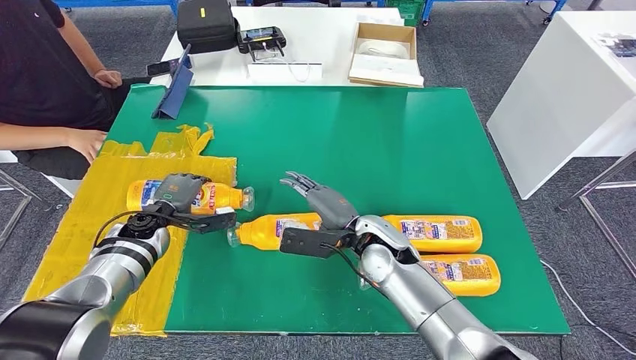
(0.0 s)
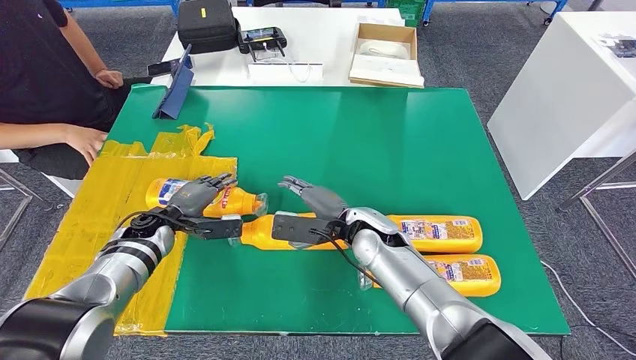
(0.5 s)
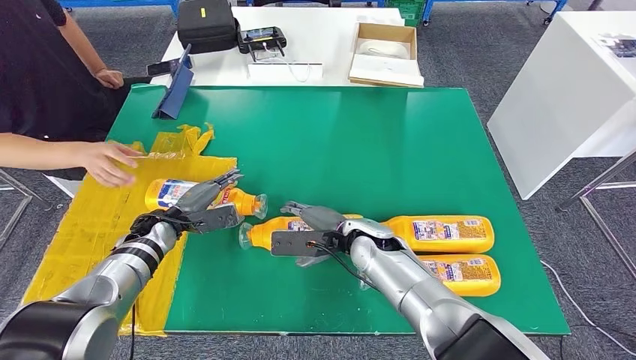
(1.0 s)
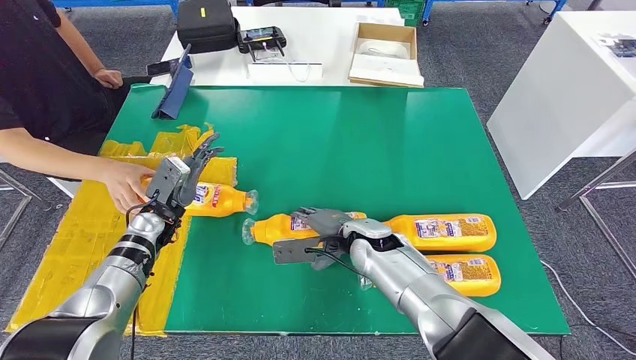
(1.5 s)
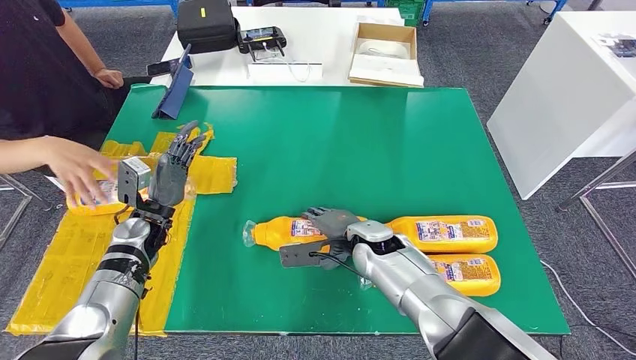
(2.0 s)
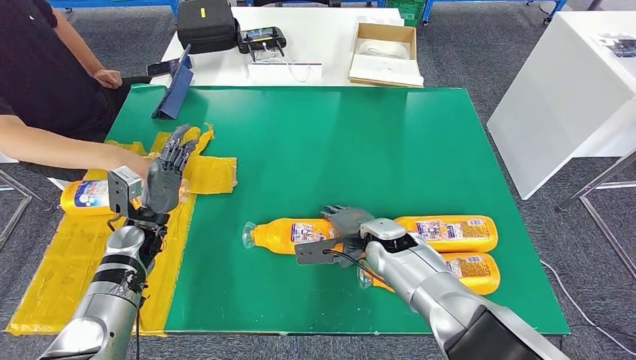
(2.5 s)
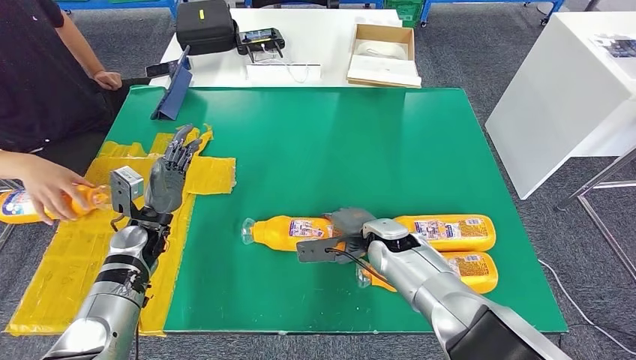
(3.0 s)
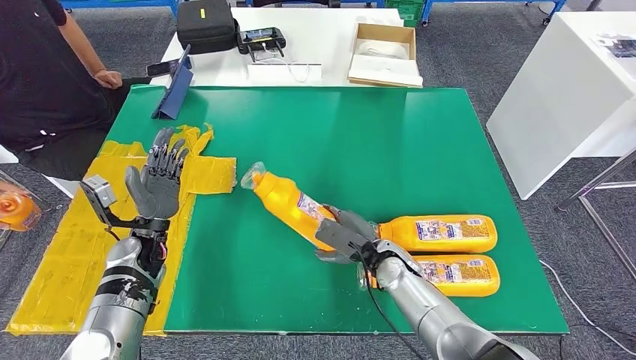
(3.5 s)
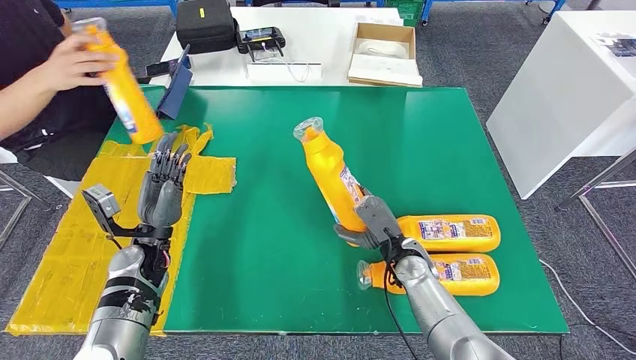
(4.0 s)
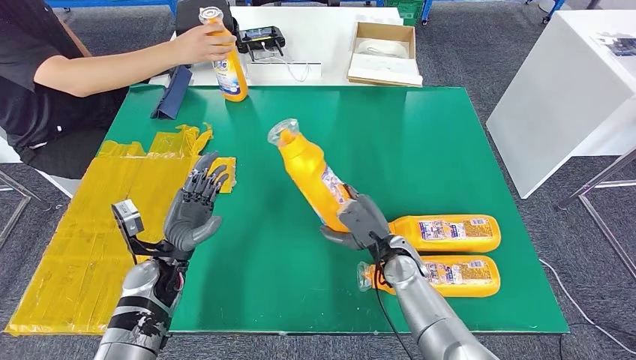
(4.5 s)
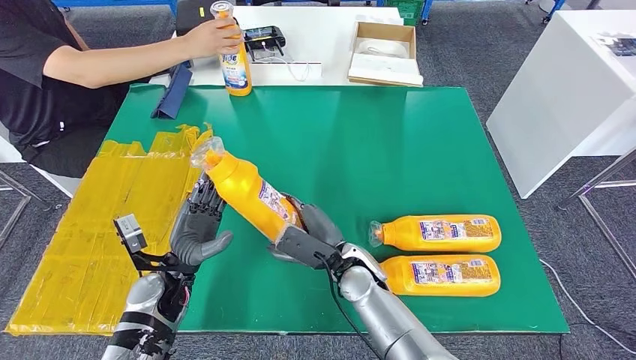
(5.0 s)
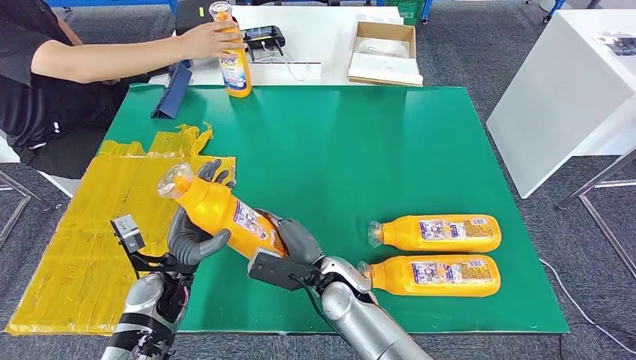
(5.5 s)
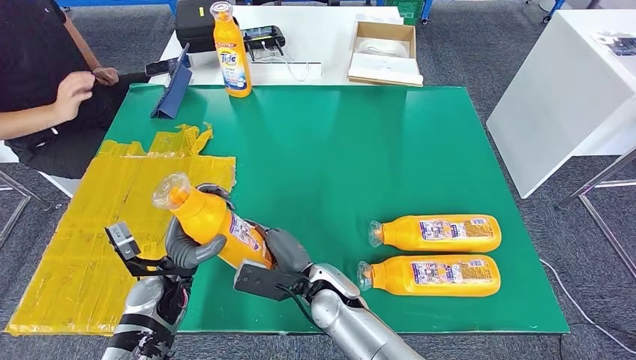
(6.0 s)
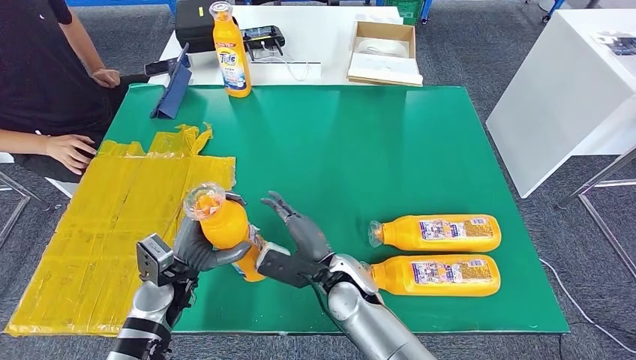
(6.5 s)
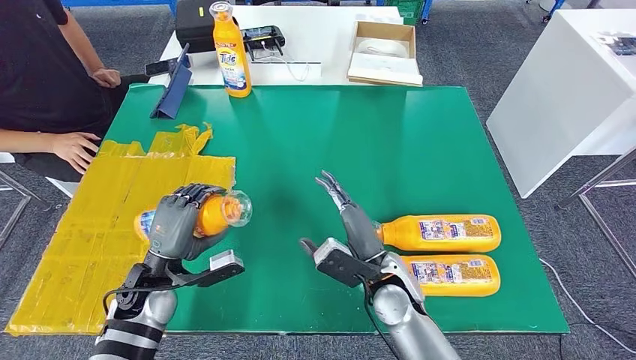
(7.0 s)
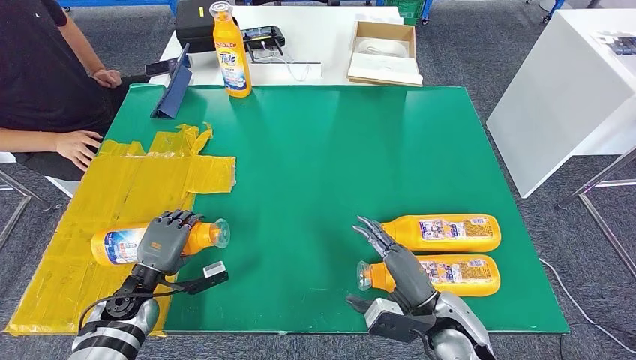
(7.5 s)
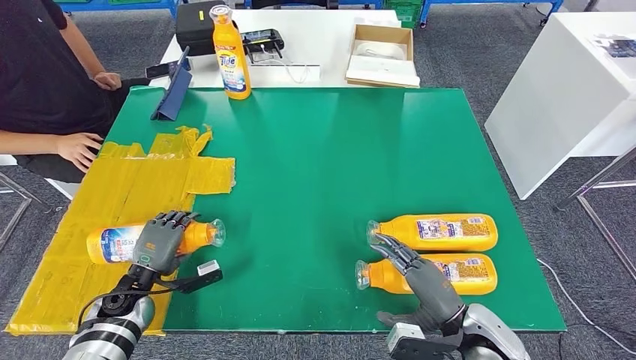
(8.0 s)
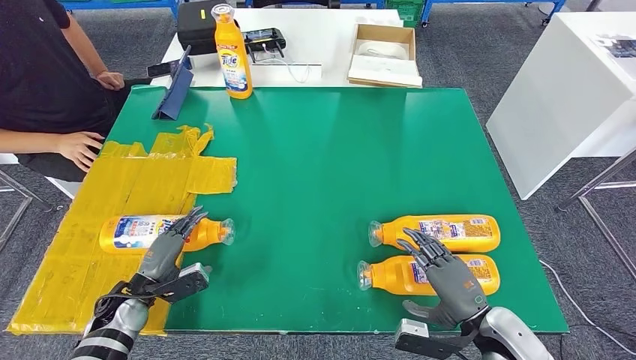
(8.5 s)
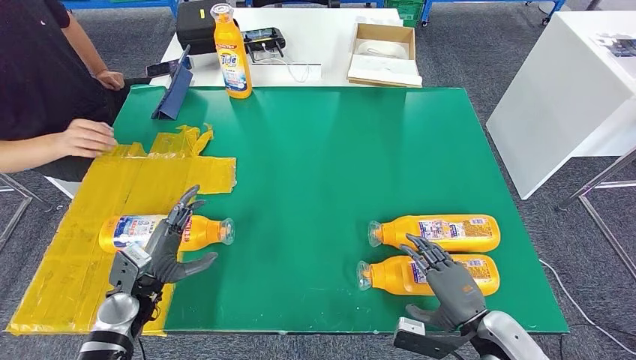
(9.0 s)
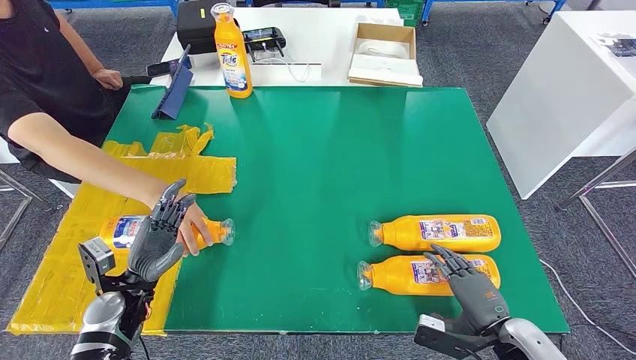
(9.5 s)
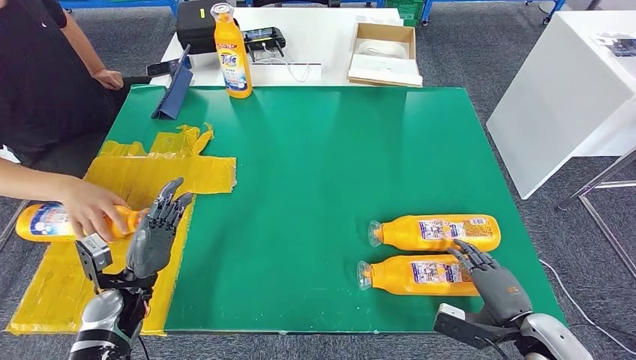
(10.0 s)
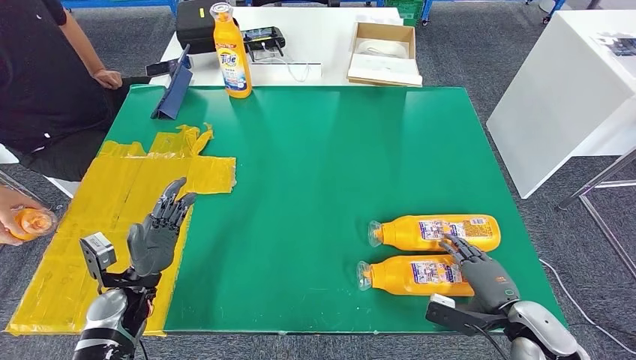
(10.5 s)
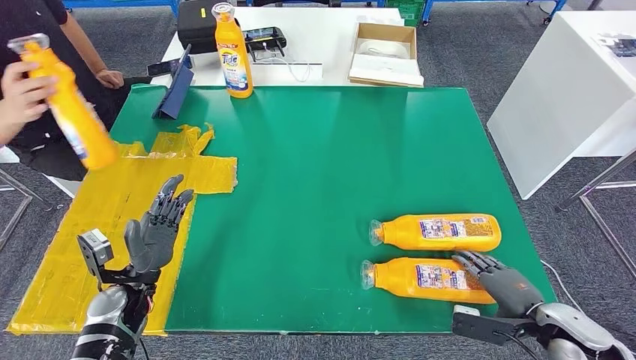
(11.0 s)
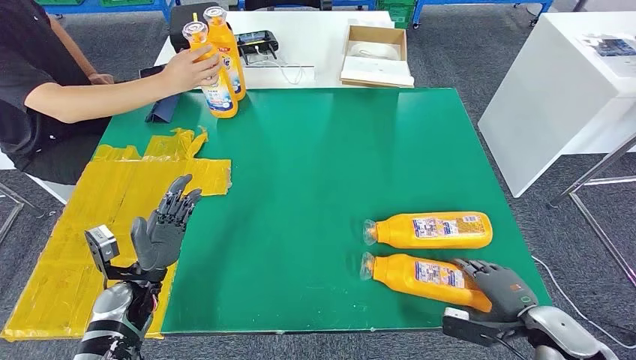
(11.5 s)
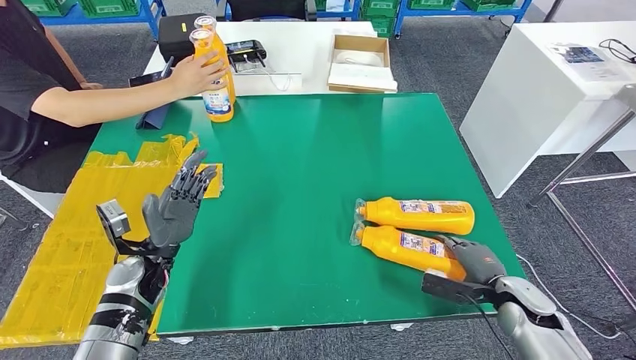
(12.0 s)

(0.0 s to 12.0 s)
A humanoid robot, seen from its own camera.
Step, 2.0 s - 5.0 s: Pick up the fast-moving consumer goods bottle from the table.
Step, 5.5 s - 9.0 s: Flip the fast-moving consumer goods bottle to the front side.

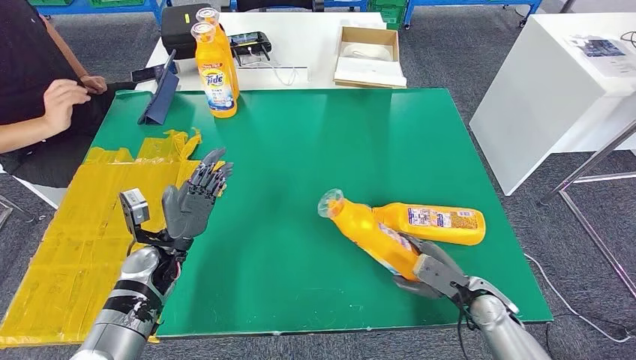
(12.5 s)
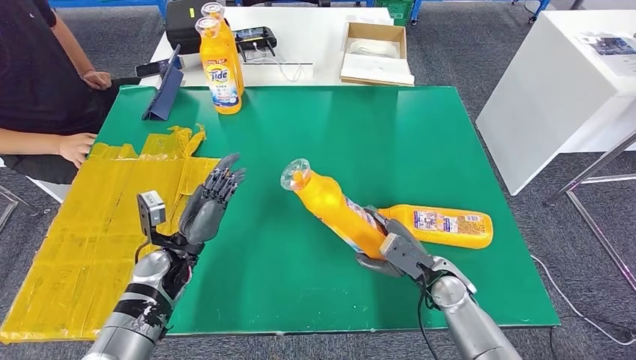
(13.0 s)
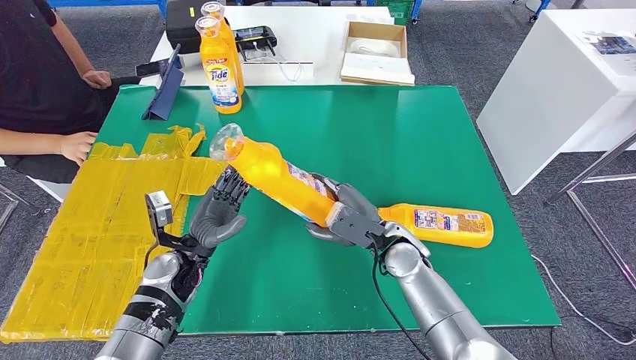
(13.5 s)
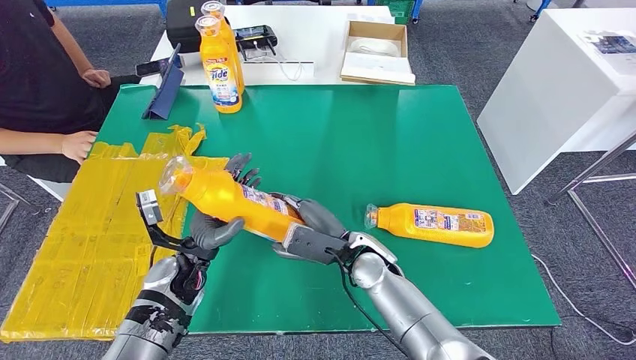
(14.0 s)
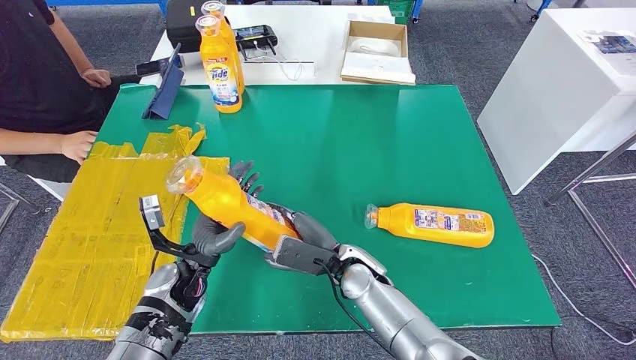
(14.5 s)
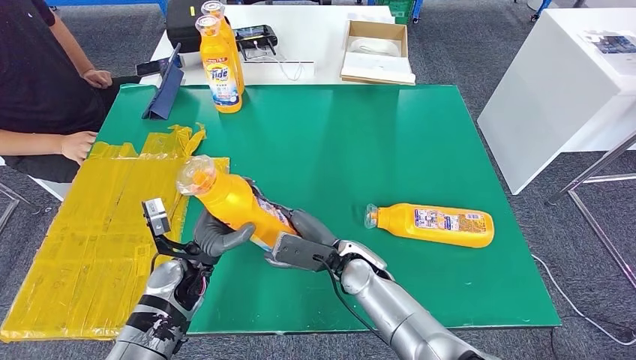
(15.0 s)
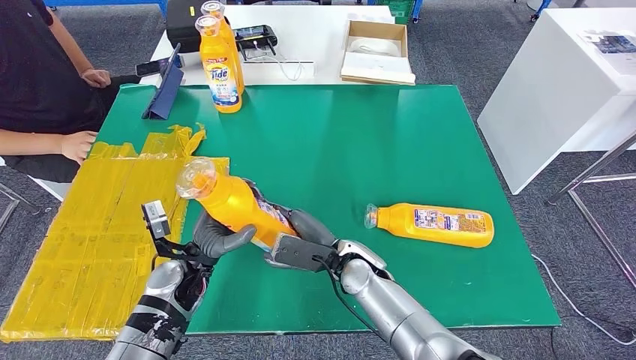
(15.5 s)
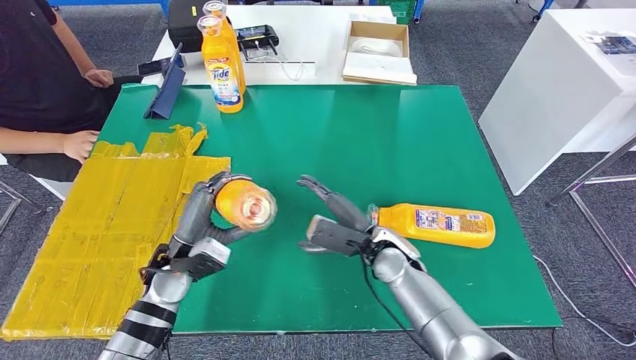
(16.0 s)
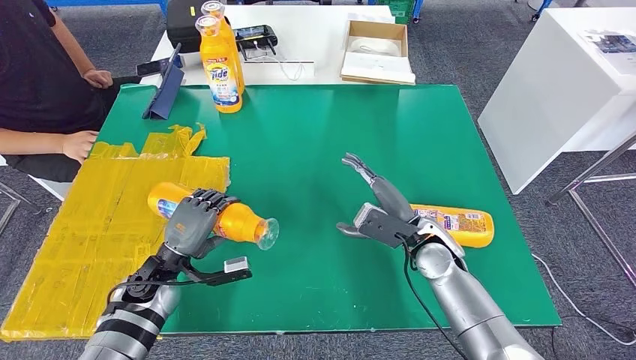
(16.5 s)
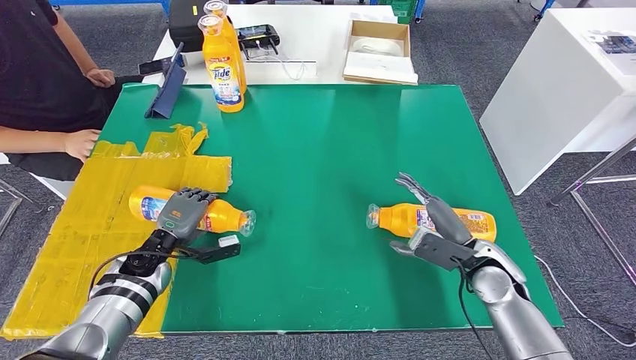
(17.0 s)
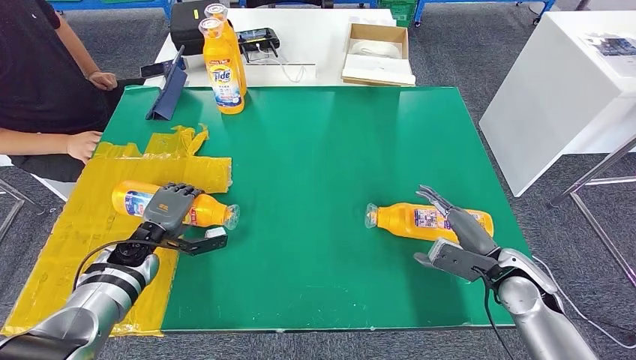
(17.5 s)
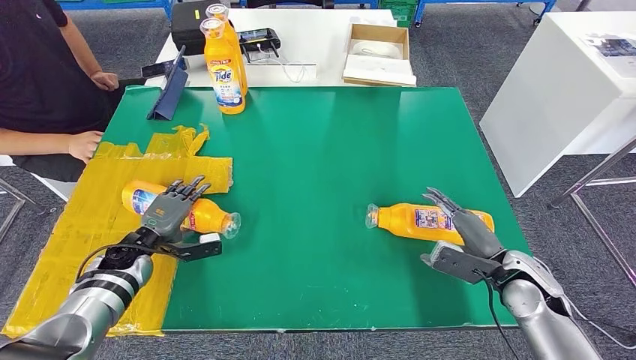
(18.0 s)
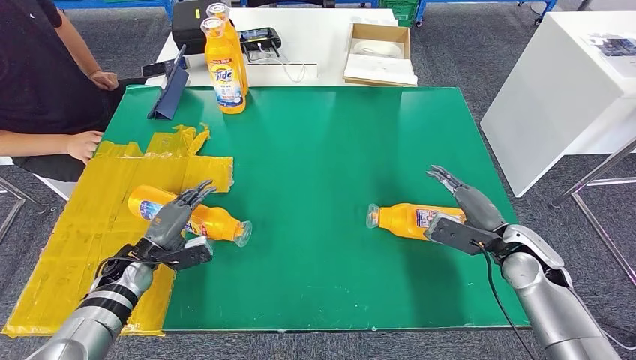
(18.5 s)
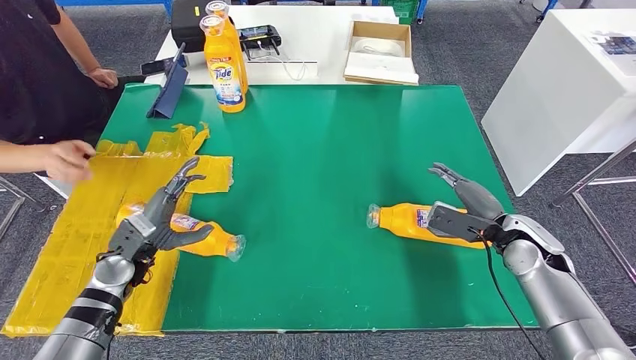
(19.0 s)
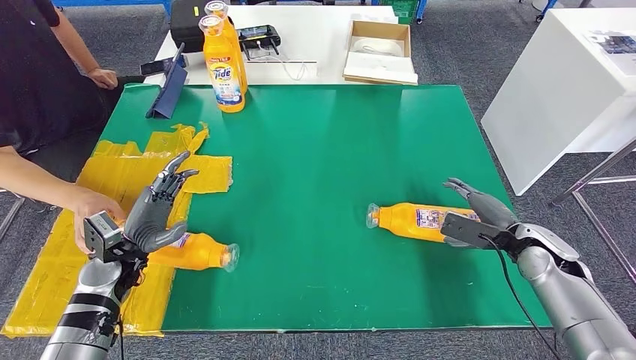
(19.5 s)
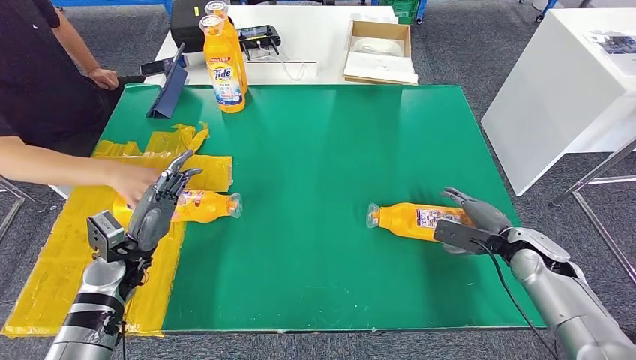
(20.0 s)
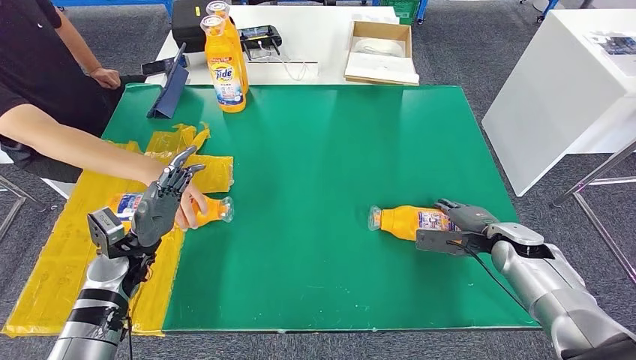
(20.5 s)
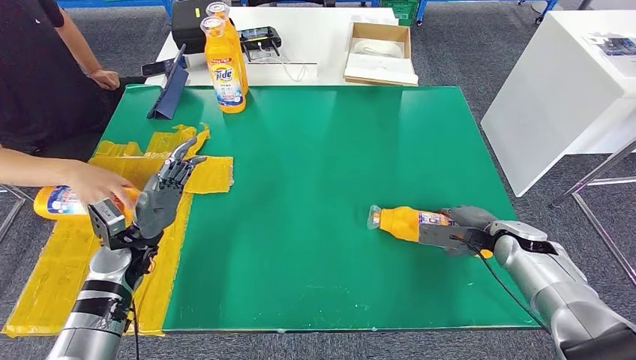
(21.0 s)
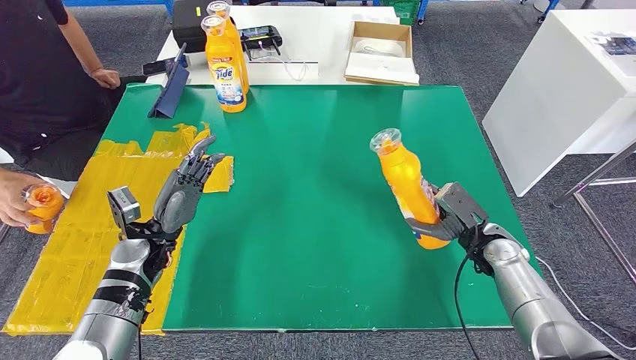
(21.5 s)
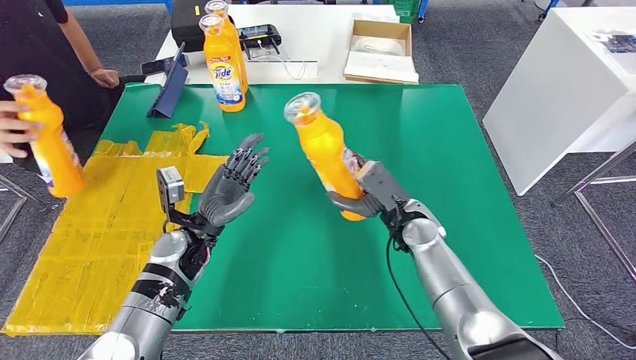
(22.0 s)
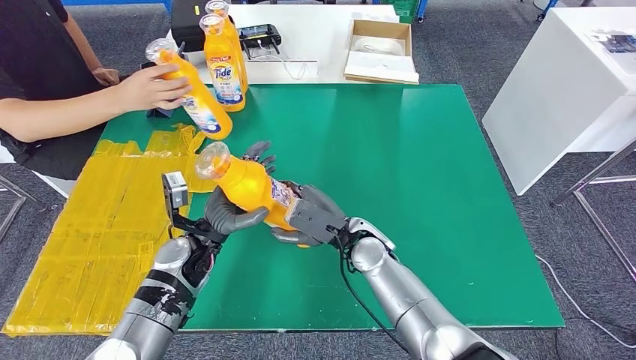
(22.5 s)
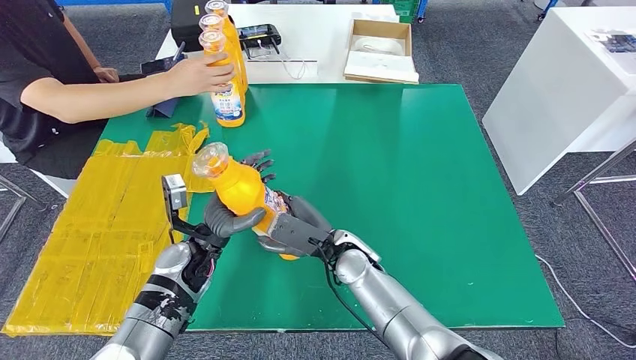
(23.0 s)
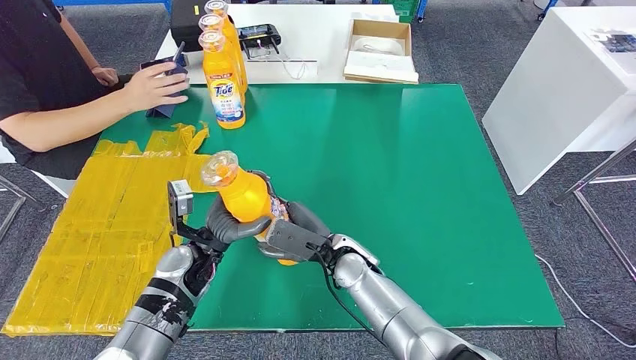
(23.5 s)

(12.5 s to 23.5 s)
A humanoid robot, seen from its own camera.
Step, 14.0 s - 19.5 s: Flip the fast-moving consumer goods bottle to the front side.
Step, 20.5 s - 22.0 s: Pick up the fast-moving consumer goods bottle from the table.
14.5 s - 16.0 s: The right hand moves to the right, roughly 5 cm.
